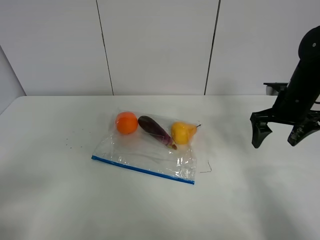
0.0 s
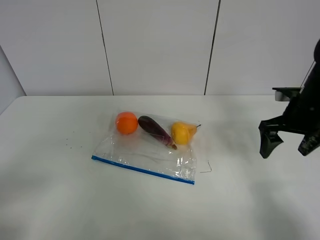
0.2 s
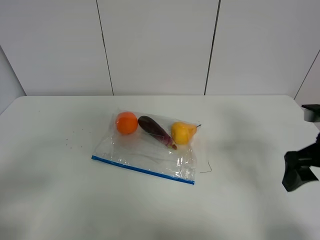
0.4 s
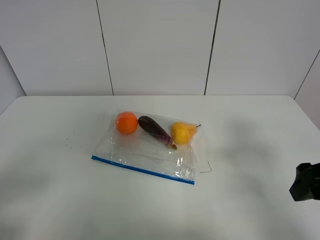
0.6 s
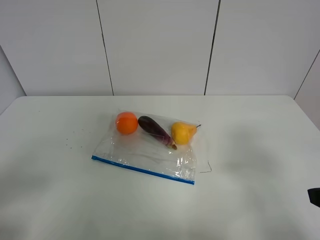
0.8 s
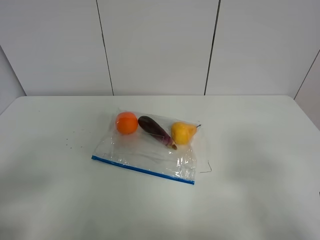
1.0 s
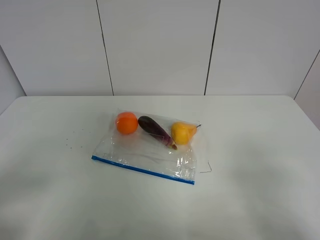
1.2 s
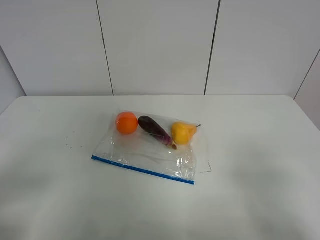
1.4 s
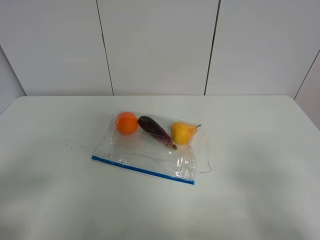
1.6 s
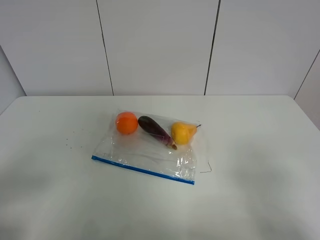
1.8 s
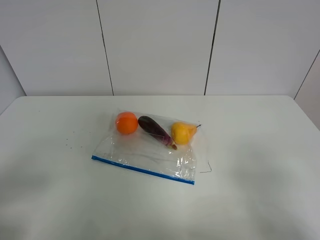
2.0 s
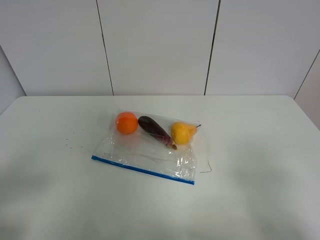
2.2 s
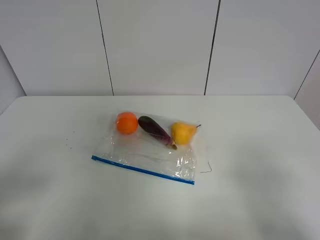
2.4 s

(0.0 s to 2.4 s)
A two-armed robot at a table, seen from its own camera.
0.0 s - 1.2 s: The right gripper travels backward by approximately 35 cm.
1.2 s - 2.4 s: Both grippers stay about where they are.

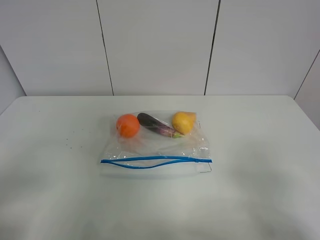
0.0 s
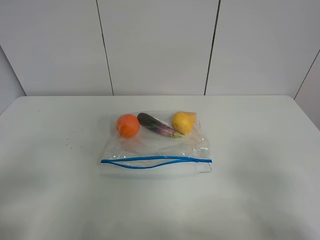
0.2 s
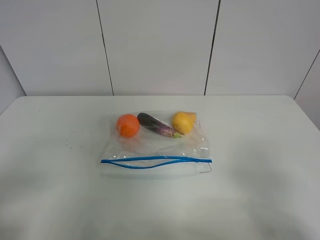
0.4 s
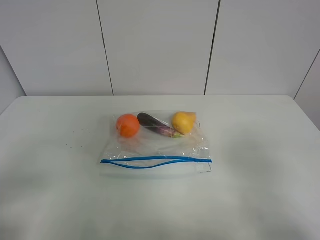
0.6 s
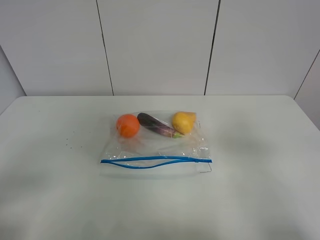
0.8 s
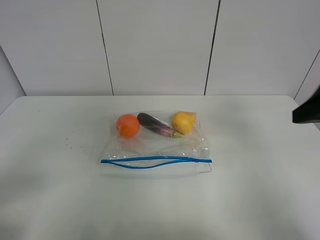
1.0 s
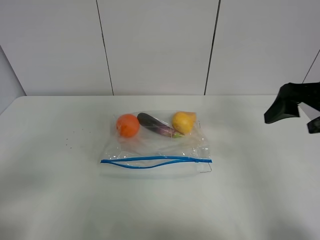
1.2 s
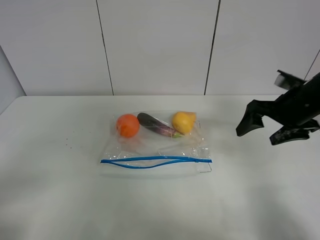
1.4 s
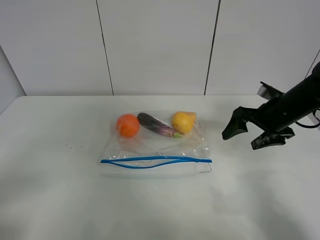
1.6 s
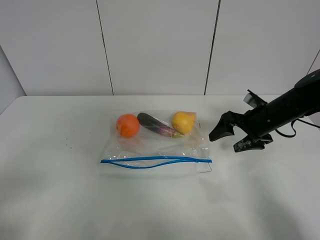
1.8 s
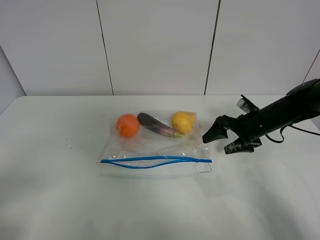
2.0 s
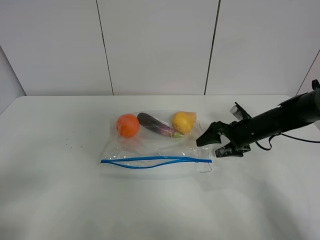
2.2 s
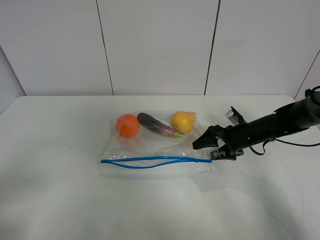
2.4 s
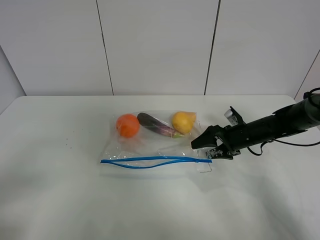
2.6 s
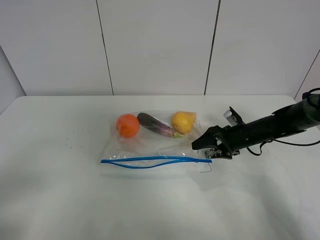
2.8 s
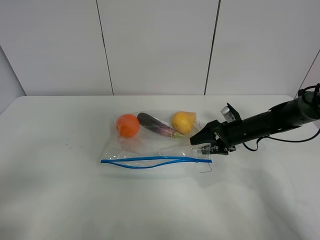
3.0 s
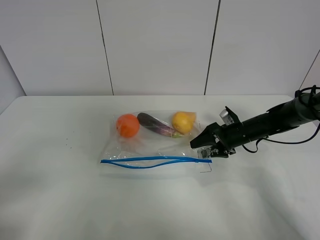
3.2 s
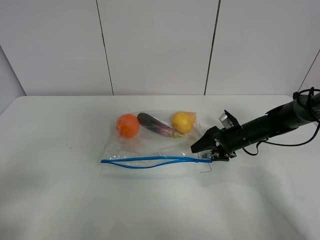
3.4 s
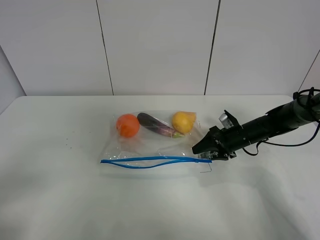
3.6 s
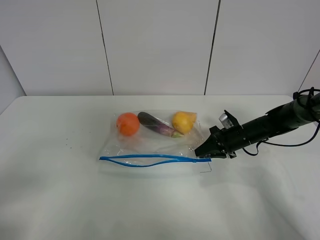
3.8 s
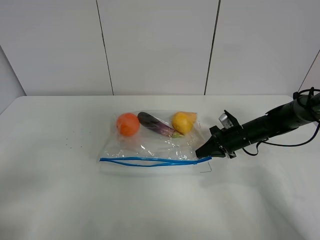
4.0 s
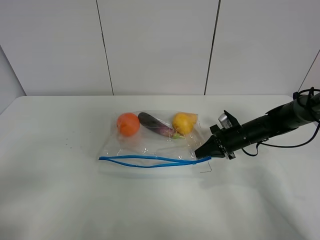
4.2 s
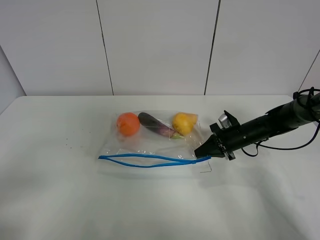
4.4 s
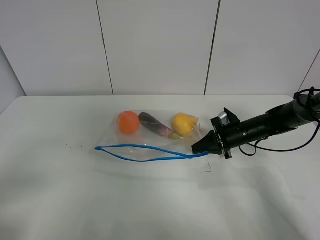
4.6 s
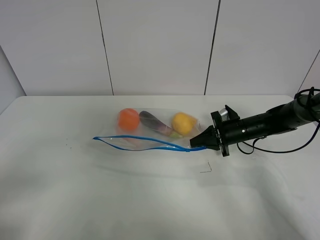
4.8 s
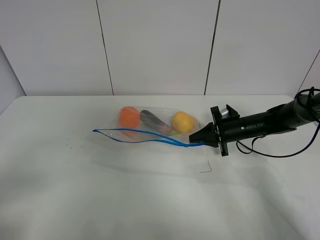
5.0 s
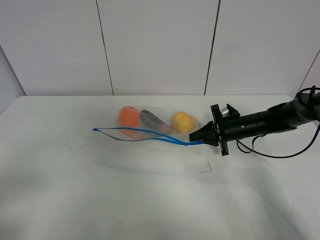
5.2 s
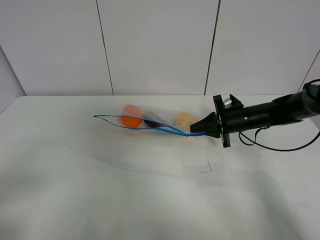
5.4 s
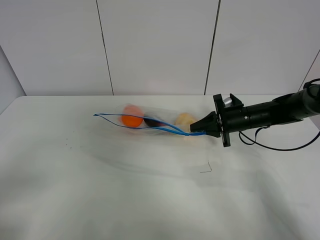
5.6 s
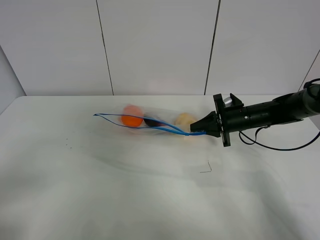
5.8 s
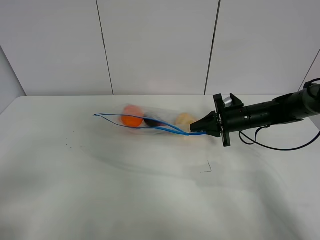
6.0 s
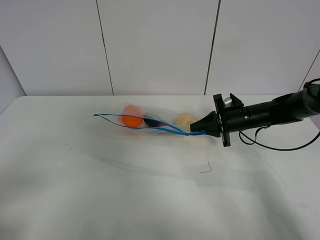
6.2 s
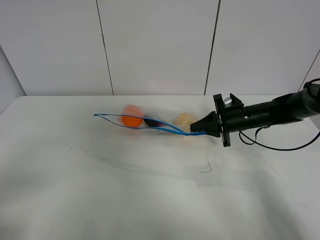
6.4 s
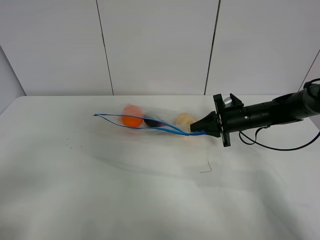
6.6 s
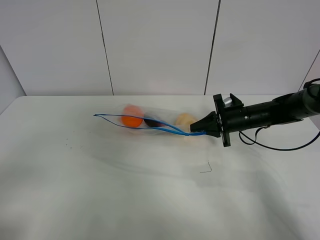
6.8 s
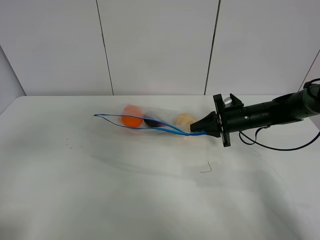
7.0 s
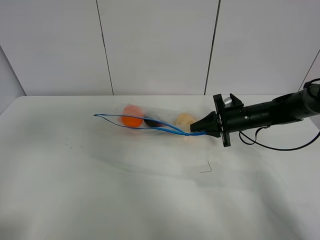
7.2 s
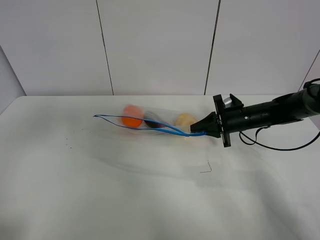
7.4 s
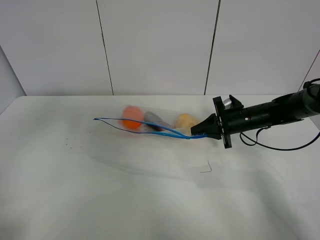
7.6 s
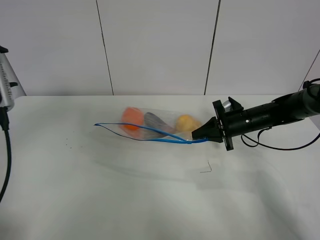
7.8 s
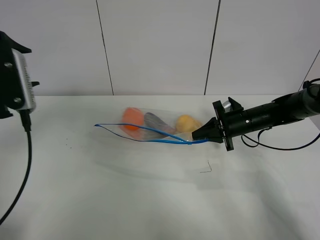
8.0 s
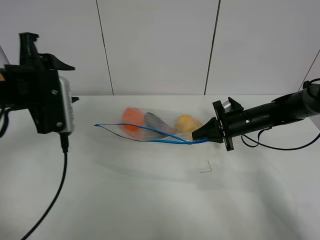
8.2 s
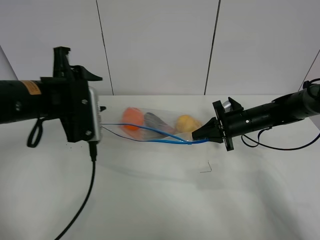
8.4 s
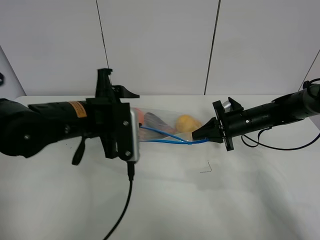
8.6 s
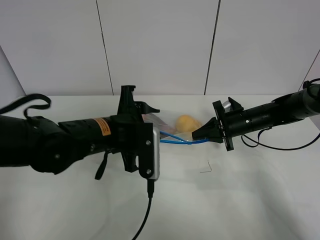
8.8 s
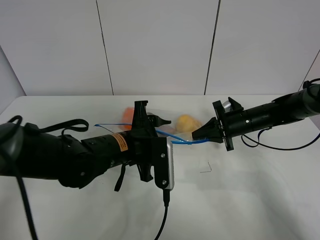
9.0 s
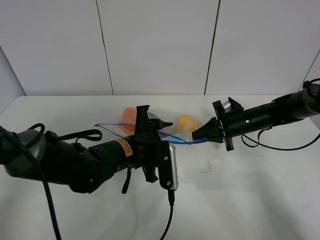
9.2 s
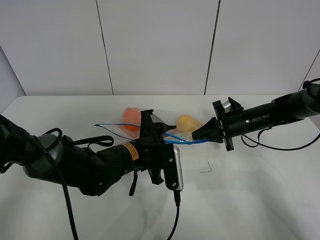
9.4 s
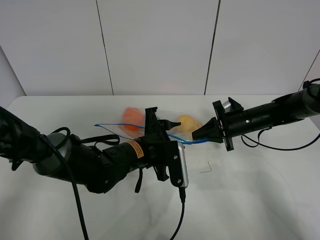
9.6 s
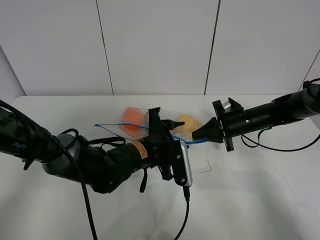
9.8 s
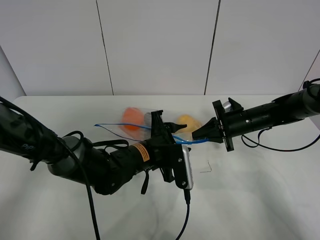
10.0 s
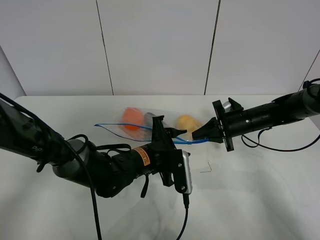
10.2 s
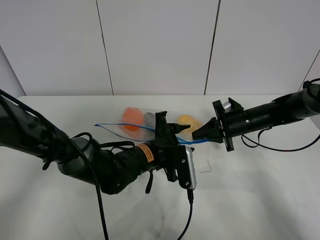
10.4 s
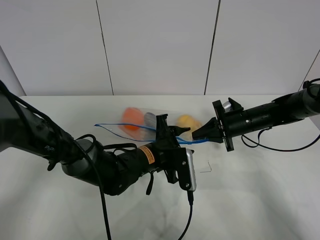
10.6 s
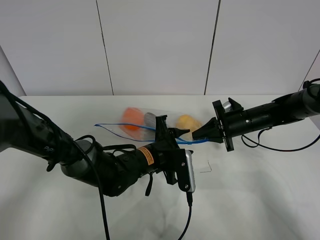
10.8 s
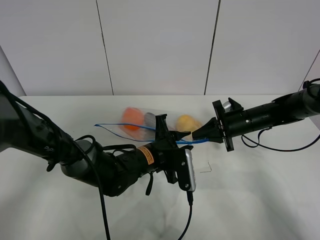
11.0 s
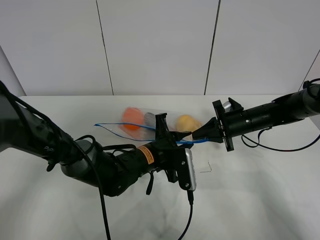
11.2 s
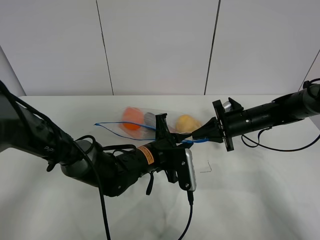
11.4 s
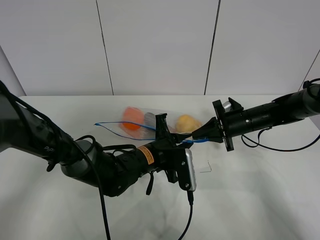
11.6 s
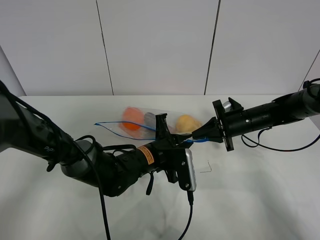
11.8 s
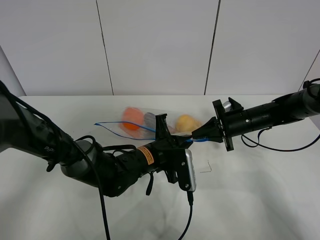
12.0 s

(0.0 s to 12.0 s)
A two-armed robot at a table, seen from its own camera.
Step, 0.0 s - 4.0 s: Grasp the fruit bag with right gripper.
Step, 4.2 s - 6.0 s: Lift the fruit bag with your right gripper.
0.0 s - 1.6 s: The right gripper shifts about 30 cm forward.
1.6 s - 3.0 s: The right gripper moves downward and forward, approximately 15 cm.
3.0 s - 4.4 s: The right gripper closes its fingers.
4.4 s - 6.0 s: The right gripper changes place by approximately 5 cm.
6.0 s - 7.6 s: The left gripper travels forward and upward by approximately 20 cm.
7.6 s - 9.0 s: The left gripper travels to the right and downward by approximately 30 cm.
9.0 s - 10.4 s: The left gripper heads downward, covering roughly 5 cm.
10.4 s - 12.0 s: The left gripper closes.

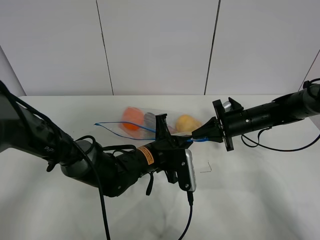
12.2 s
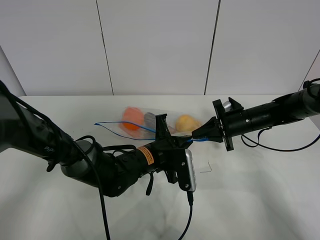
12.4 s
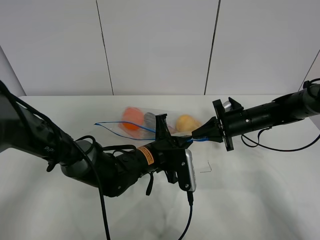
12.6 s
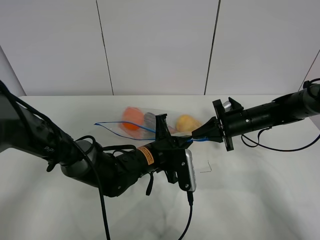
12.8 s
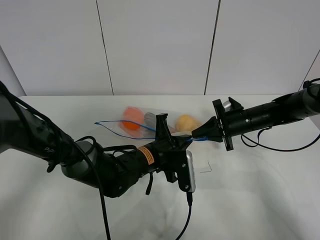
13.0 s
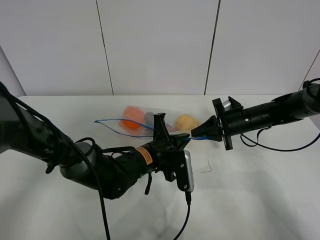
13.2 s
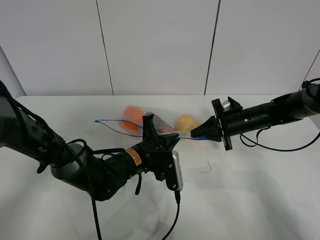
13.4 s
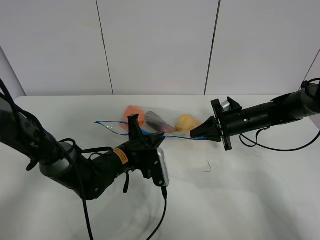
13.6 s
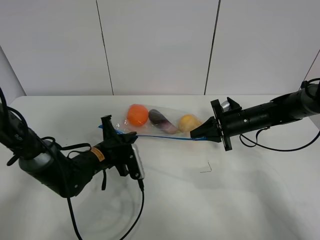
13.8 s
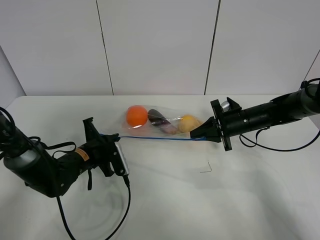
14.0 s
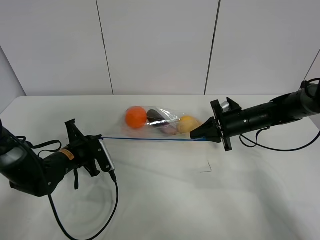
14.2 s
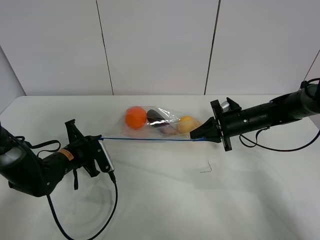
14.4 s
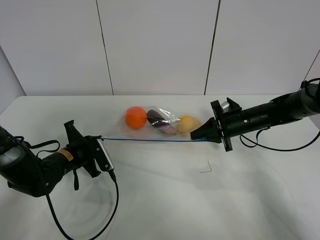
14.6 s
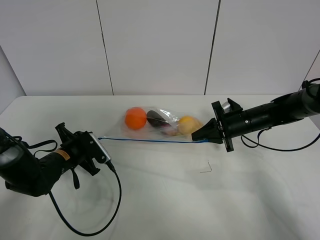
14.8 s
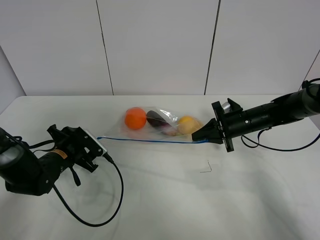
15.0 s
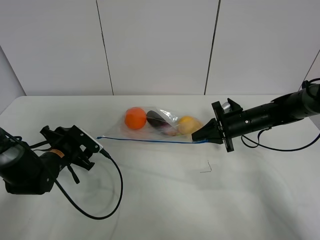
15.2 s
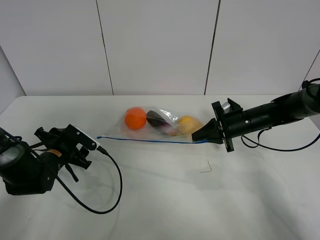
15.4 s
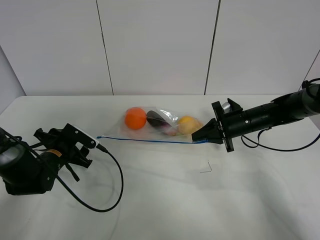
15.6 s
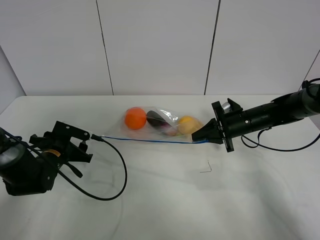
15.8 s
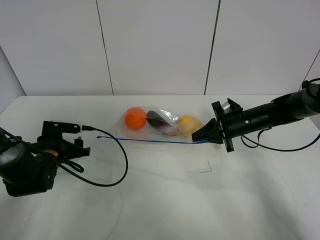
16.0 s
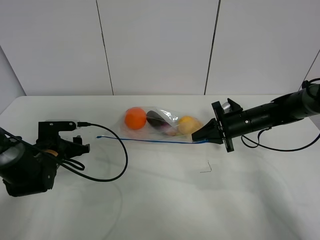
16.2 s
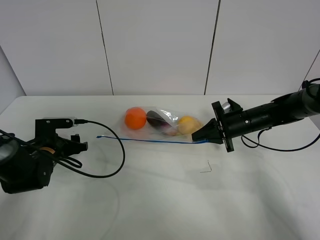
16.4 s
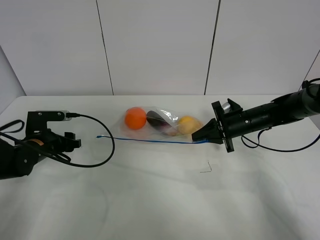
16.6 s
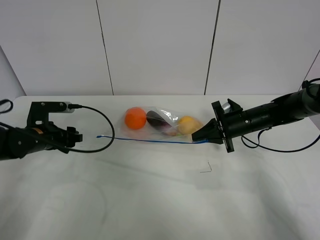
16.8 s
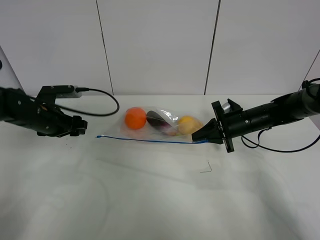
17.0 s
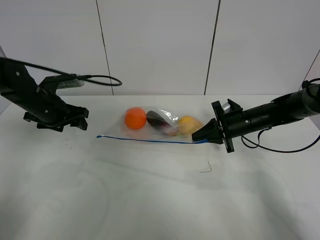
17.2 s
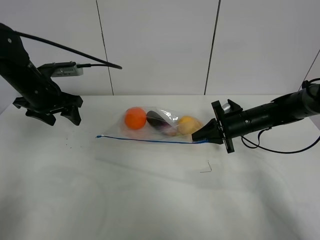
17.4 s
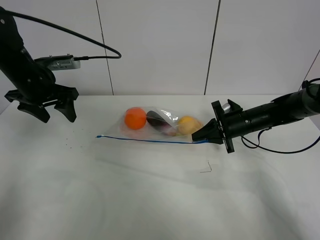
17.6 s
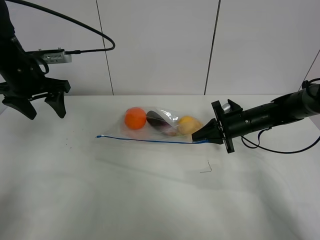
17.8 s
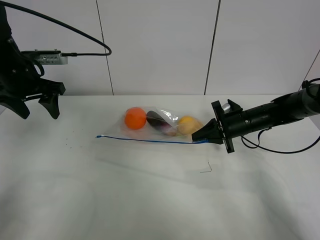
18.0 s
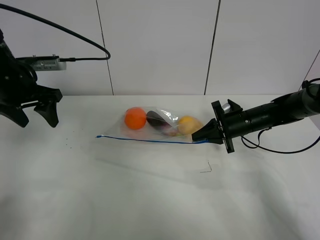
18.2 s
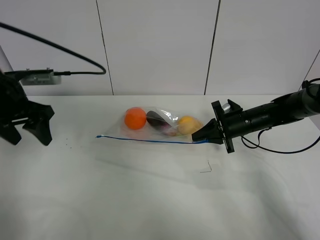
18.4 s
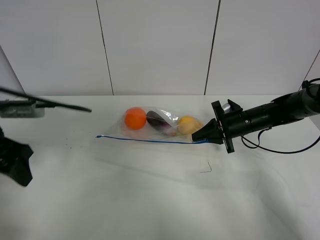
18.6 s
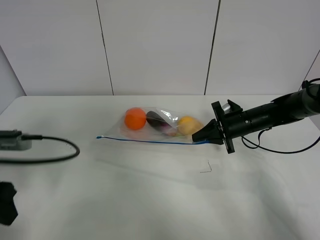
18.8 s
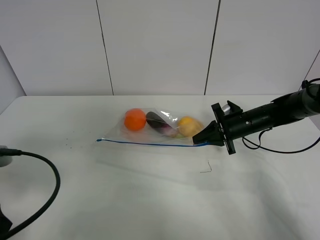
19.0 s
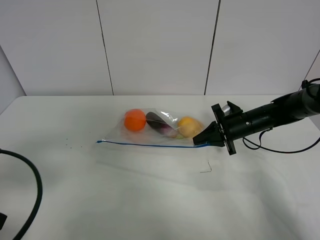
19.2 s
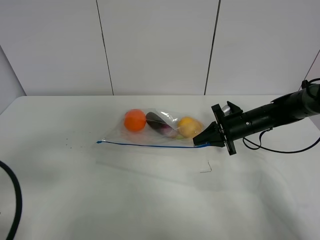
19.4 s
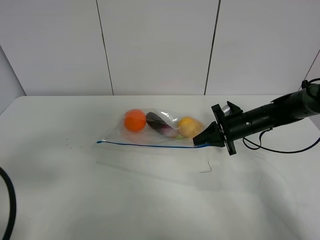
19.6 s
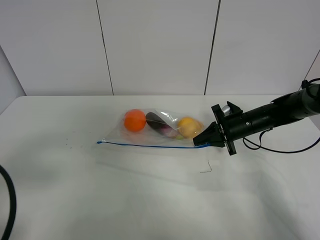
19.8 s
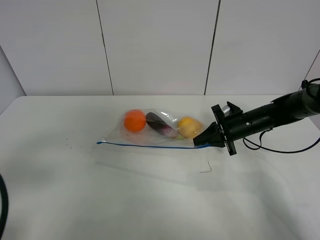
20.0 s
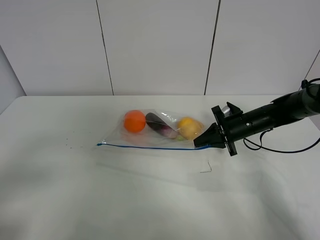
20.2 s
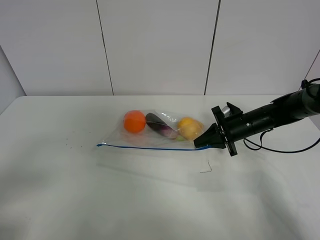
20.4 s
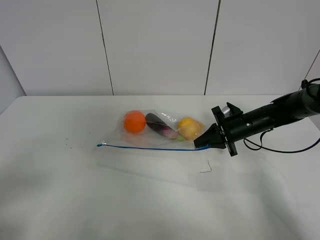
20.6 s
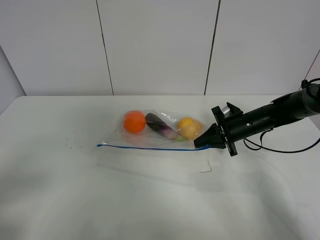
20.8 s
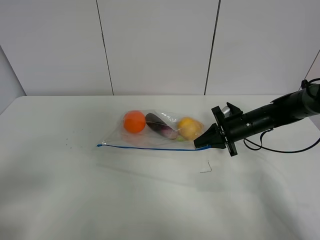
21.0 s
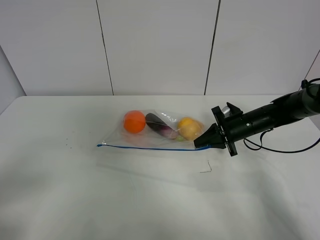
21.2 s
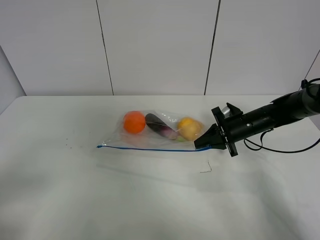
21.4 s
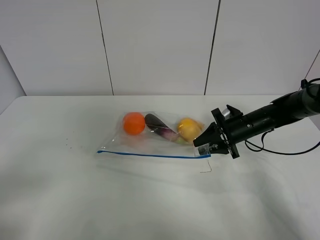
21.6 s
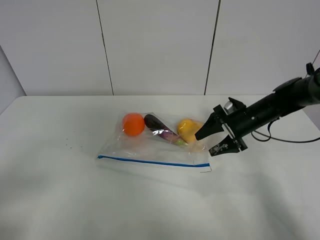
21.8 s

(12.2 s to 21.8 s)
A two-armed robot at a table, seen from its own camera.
Step, 12.2 s - 14.8 s: Pull the fruit bag with left gripper.
12.2 s - 13.8 s: The left gripper moves to the left, roughly 10 cm.
13.8 s - 15.4 s: The left gripper heads to the left, covering some 10 cm, and opens its fingers.
15.4 s - 17.0 s: The left gripper heads upward, covering some 10 cm.
17.0 s - 18.6 s: The left gripper heads backward and upward, covering approximately 15 cm.
18.6 s - 20.2 s: The left gripper goes some 20 cm backward.
20.2 s - 21.8 s: The right gripper opens.
